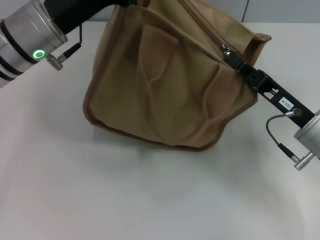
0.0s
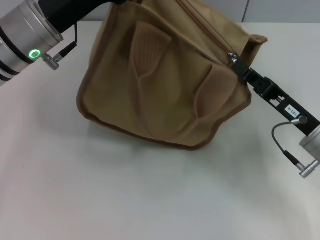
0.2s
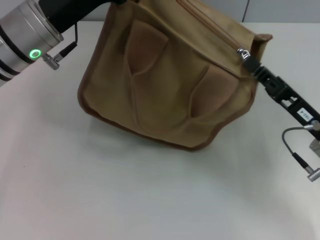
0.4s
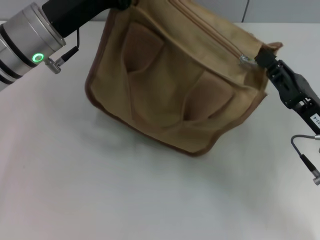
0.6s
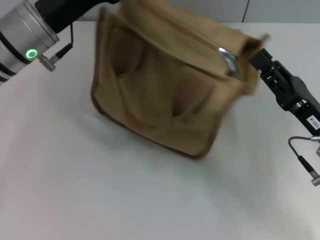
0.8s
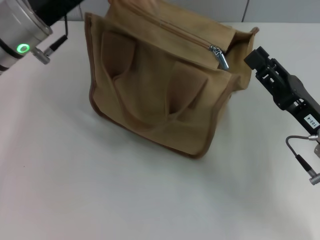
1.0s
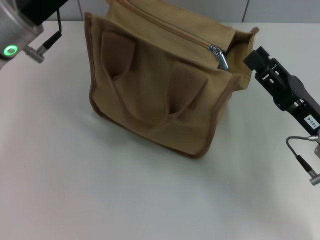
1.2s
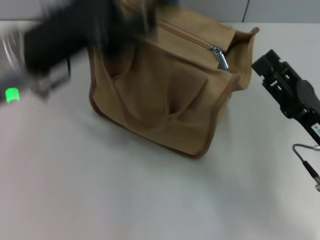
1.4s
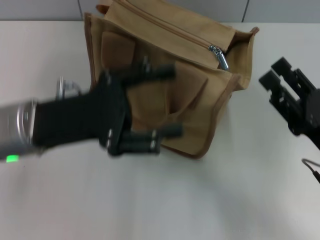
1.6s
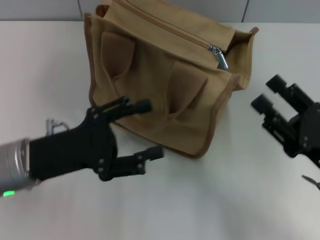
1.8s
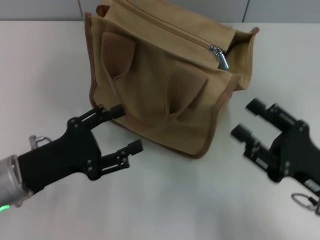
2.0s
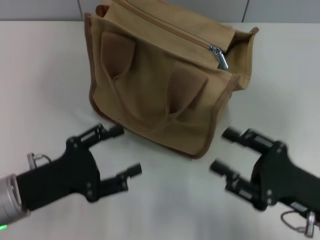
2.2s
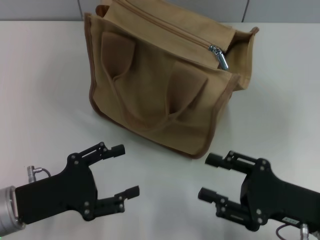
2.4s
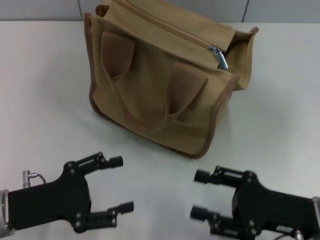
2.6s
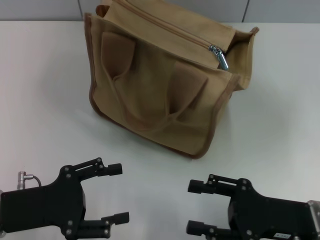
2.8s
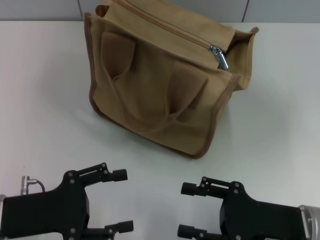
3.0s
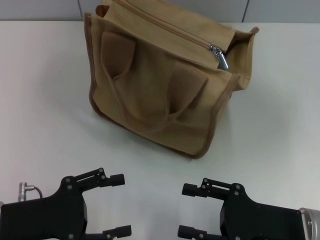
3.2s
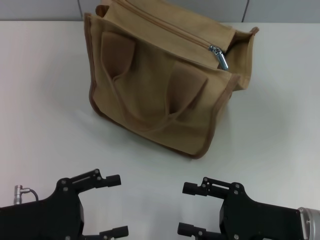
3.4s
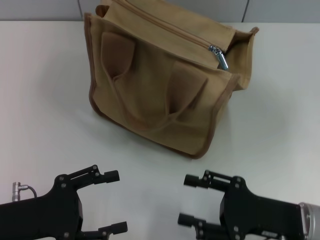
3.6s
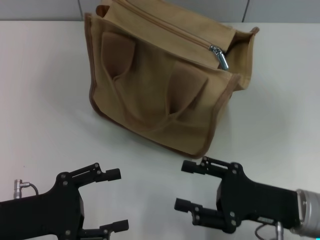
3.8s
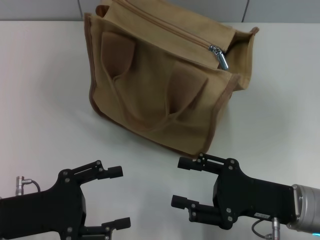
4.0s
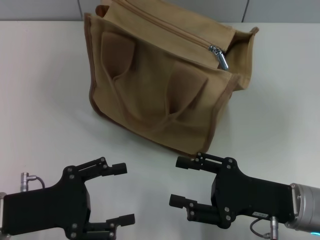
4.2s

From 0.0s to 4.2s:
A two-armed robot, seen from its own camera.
Step, from 1.2s to 1.6s: Grab the zipper with your left hand.
From 0.0s to 1.4s: The left gripper opens its fingers; the right gripper shifts by approximately 5 cm, and opens its fingers.
From 1.4s to 2.8s: The left gripper travels backward, downward and to the left by about 20 cm. The right gripper ends up approximately 5 cm from where it was.
From 2.8s to 4.2s: The grippers move only a little.

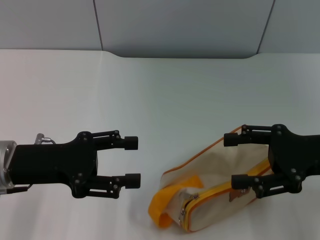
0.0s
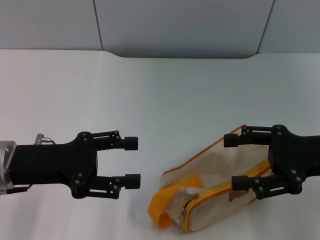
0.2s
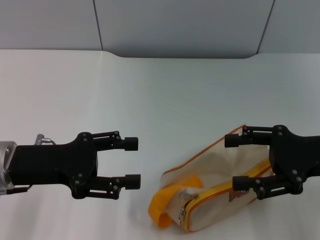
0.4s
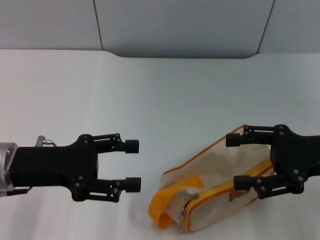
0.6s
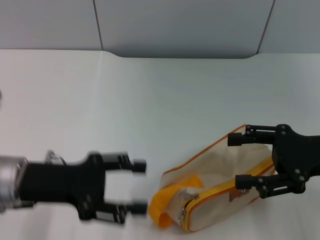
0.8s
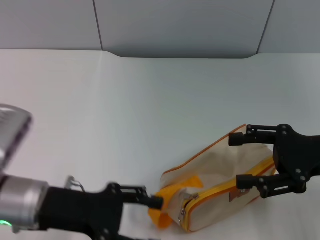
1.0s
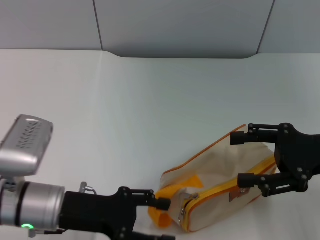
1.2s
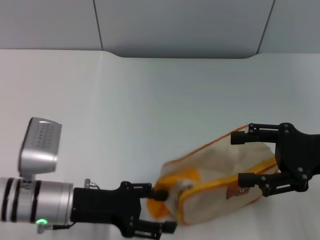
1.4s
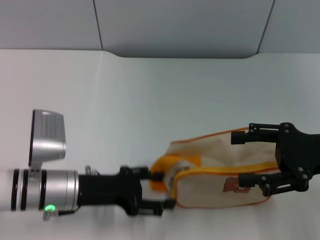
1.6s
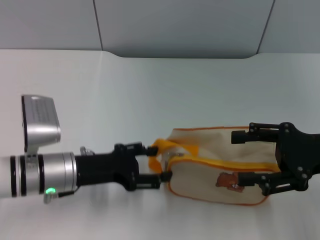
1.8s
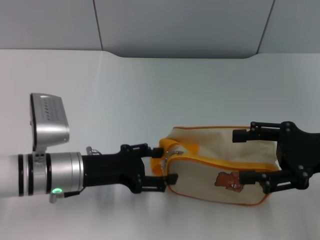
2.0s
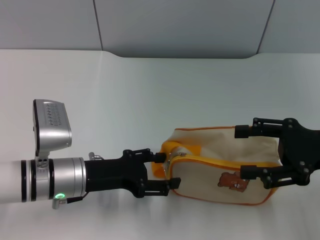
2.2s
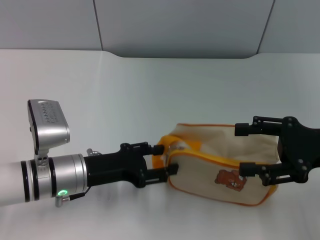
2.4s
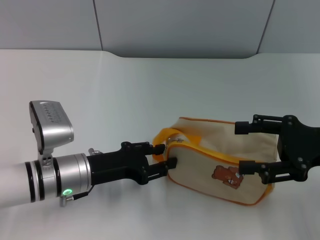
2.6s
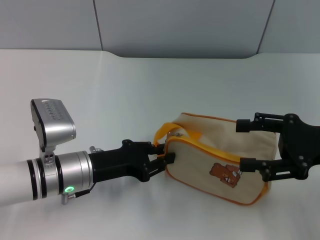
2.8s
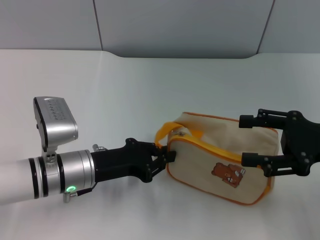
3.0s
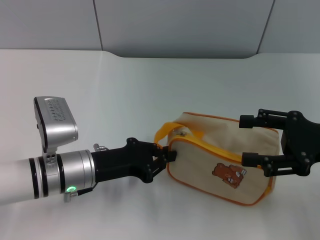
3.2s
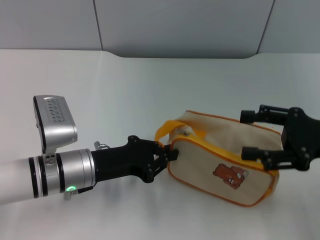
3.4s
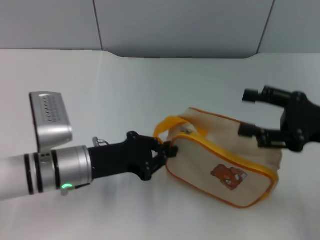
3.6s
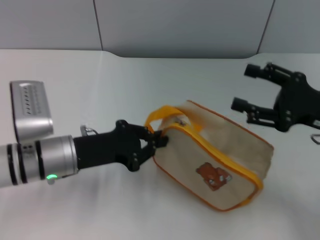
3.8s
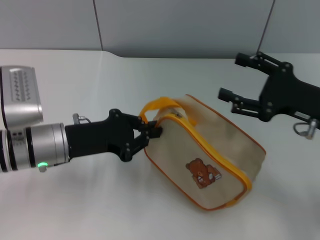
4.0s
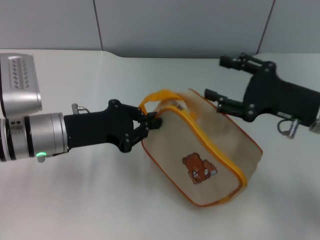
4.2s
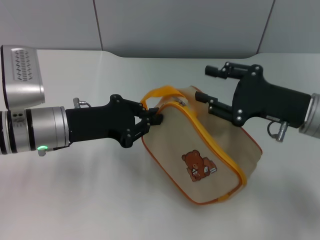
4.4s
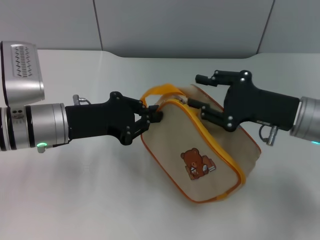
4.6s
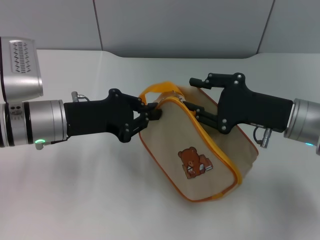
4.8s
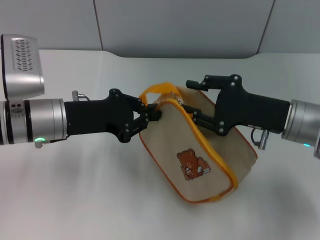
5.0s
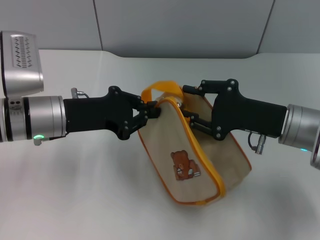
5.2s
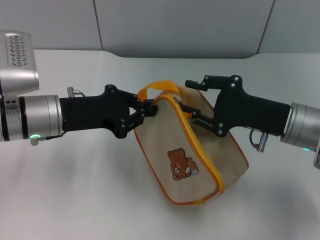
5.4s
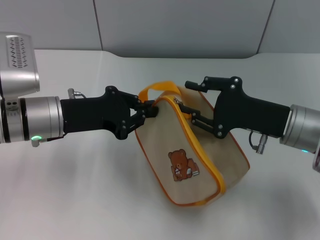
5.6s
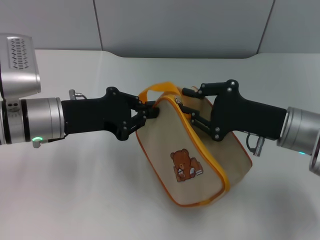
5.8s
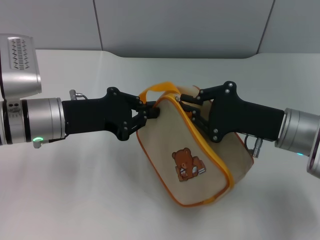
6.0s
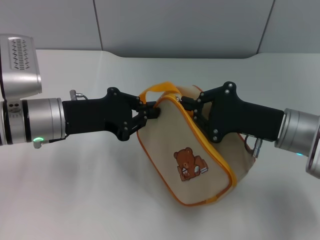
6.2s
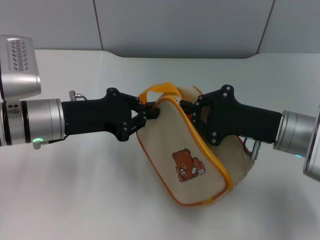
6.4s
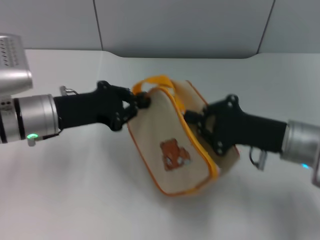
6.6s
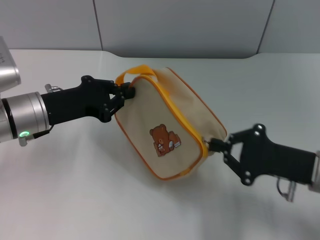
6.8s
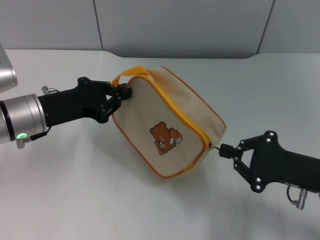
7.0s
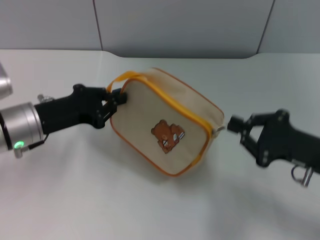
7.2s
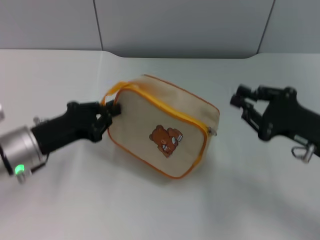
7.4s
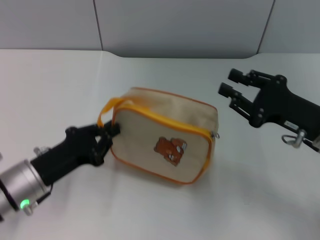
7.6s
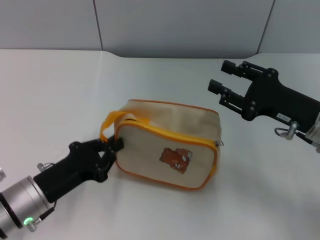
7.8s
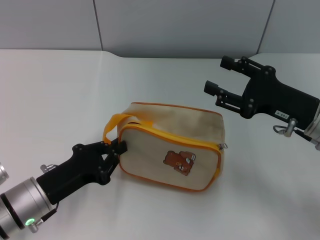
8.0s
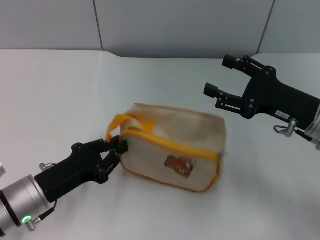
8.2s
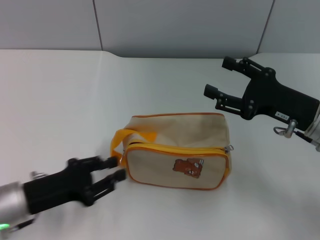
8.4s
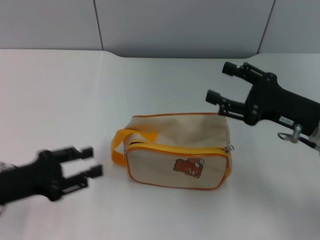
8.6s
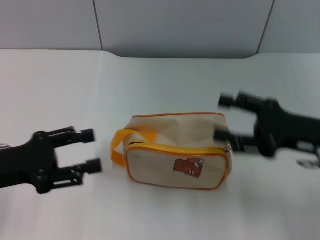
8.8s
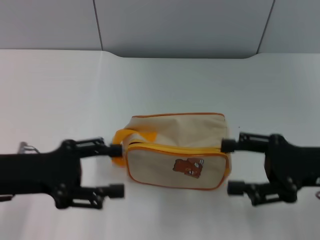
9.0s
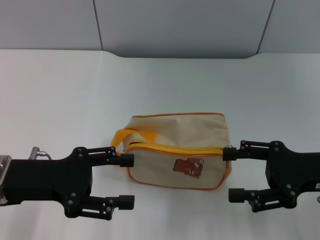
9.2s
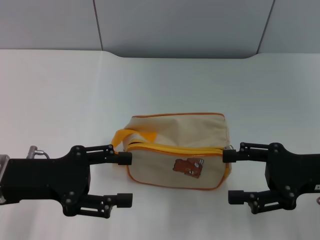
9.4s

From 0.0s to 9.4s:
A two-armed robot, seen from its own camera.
Step, from 0.0s to 4.2s: Pick up the bag with left gripper.
Step, from 4.4s to 7.2s: Unzip the zipper of bag with right gripper.
Step, from 7.4s to 8.4s: Place the bag on the table with left gripper.
From 0.0s to 1.6s: The left gripper shifts some 10 cm downward and to the right.
From 1.6s to 3.2s: The left gripper closes.
From 3.2s to 4.8s: The left gripper travels upward by about 5 cm. The right gripper moves to the left, roughly 10 cm, and closes.
From 4.8s to 6.2s: The right gripper closes.
From 6.2s to 7.8s: The left gripper is displaced backward and downward by some 15 cm, while the right gripper opens up.
From 7.8s to 9.4s: The left gripper shifts roughly 10 cm upward, and opens. The right gripper moves about 5 cm, and opens.

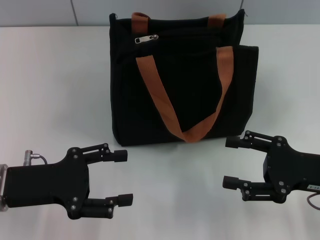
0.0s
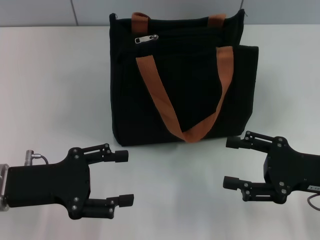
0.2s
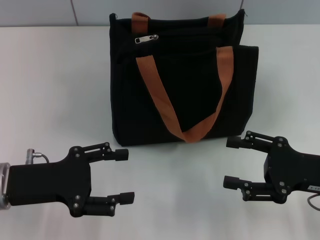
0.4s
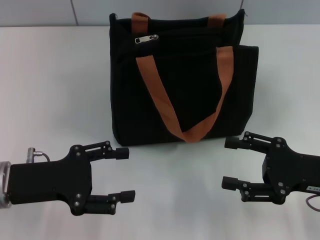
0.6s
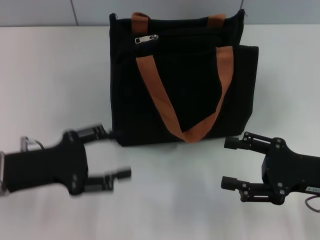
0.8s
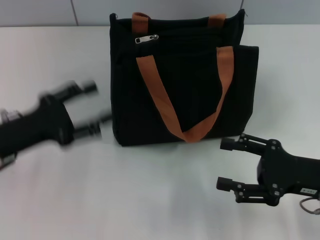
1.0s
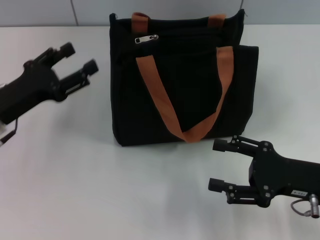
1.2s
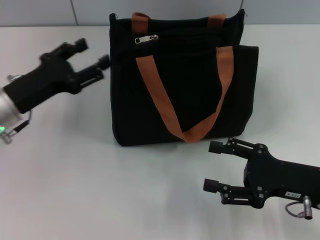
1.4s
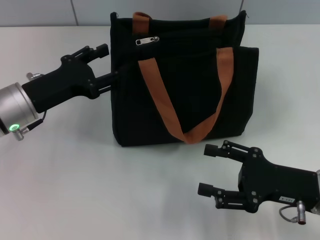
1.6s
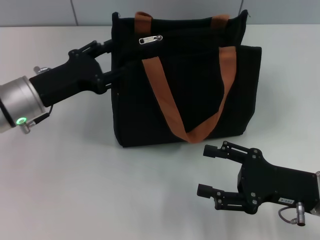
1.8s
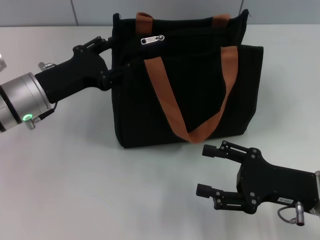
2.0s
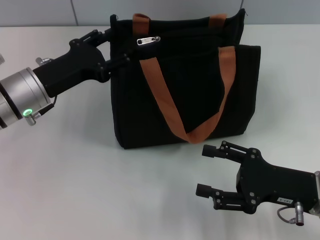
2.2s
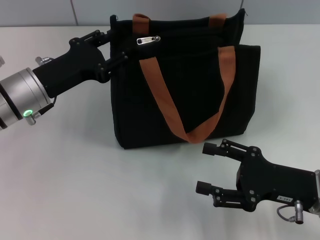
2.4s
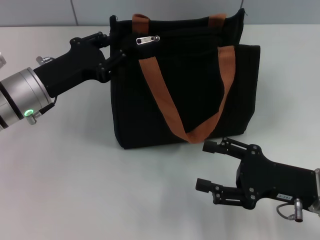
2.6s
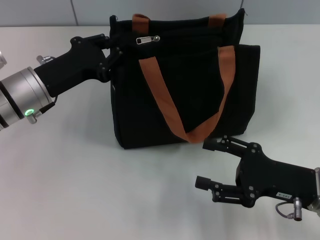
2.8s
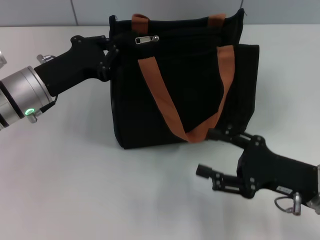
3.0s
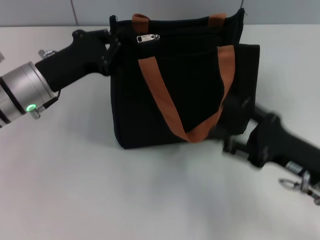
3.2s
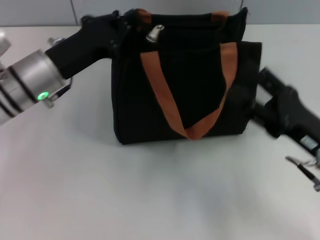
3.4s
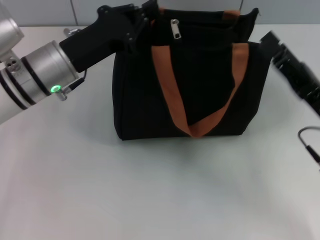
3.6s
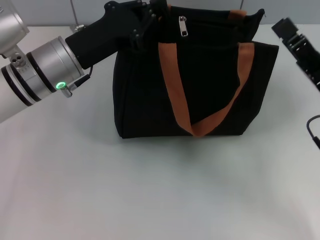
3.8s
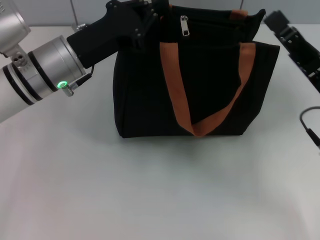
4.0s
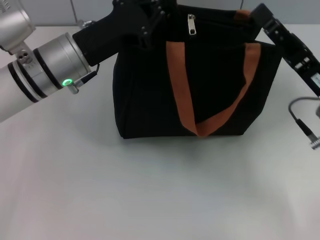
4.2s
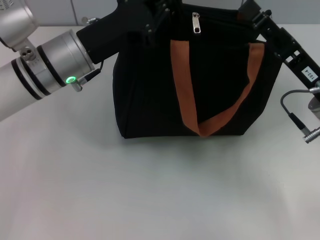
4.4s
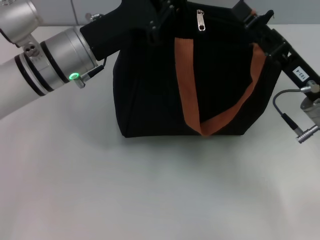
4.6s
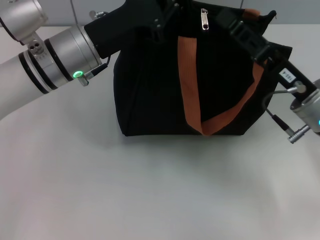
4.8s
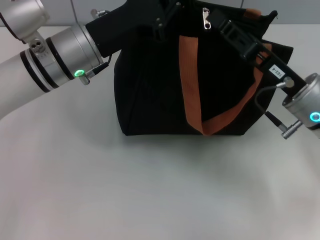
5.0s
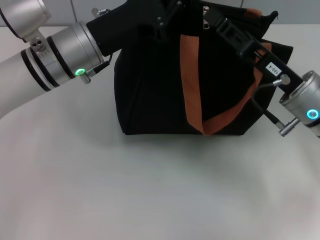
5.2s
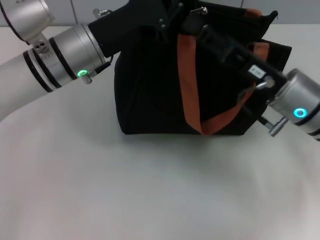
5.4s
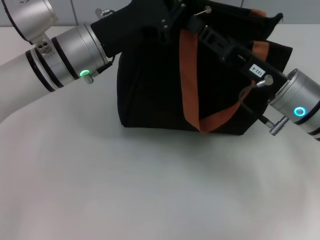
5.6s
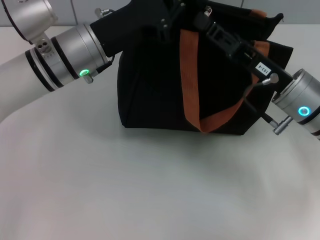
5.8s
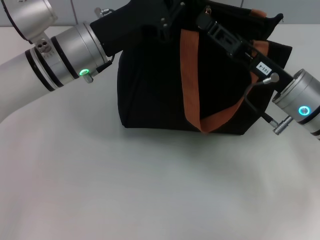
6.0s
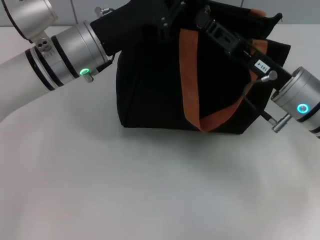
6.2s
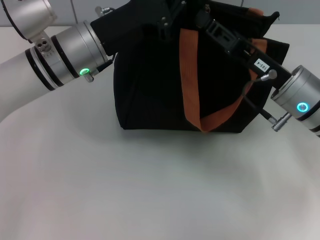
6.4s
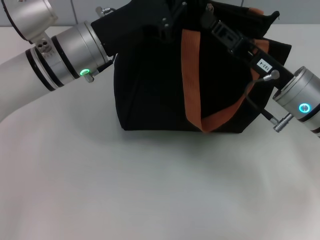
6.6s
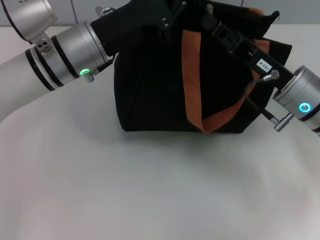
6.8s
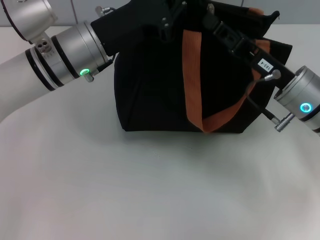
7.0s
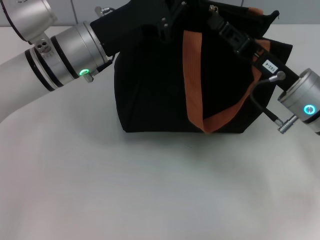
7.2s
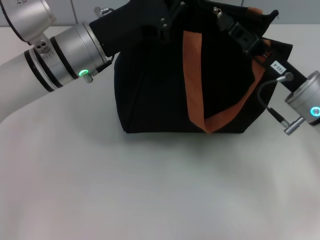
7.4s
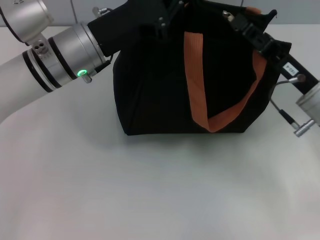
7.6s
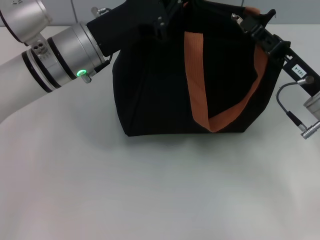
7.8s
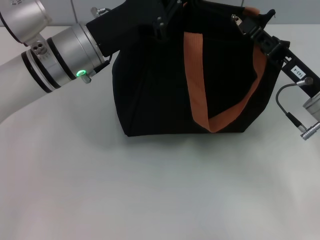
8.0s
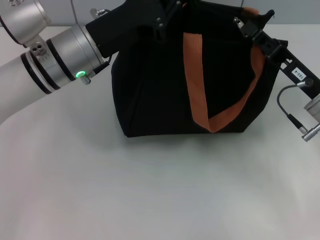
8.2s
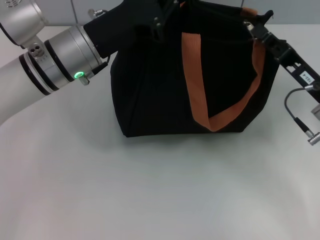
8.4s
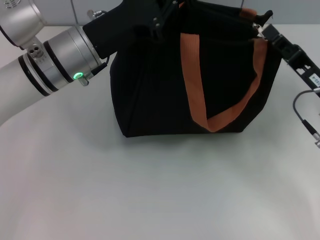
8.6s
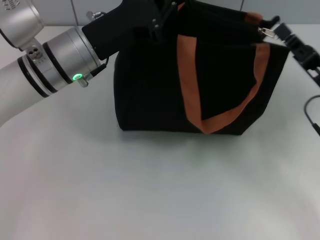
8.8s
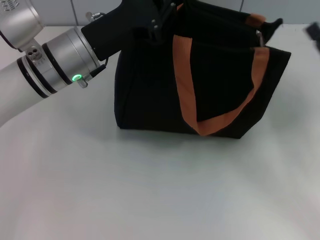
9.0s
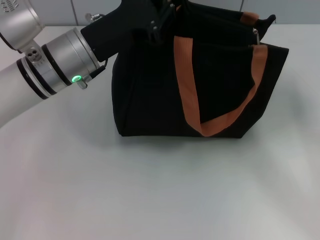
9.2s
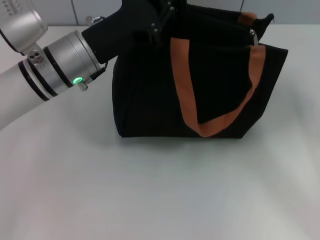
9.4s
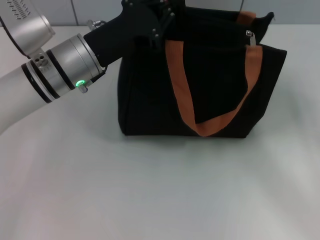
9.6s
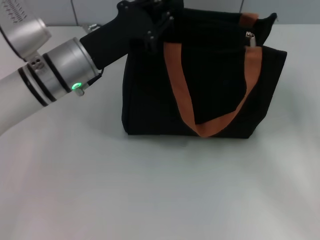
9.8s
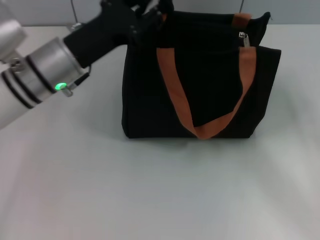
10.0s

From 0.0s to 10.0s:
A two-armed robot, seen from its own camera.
Step, from 0.0s to 8.8s: Pull up the zipper with your right hand.
From 0.0s to 1.4s: The left gripper is displaced forward by approximately 10 cm.
From 1.4s to 2.8s: The left gripper closes.
From 2.8s to 4.2s: The left gripper is displaced to the right by some 5 cm; the right gripper heads forward and upward, covering roughly 10 cm.
From 4.2s to 5.8s: The right gripper shifts by some 5 cm, and closes its fingers.
From 5.8s to 7.2s: The right gripper closes.
From 7.2s to 8.6s: The right gripper moves to the right, roughly 5 cm.
From 8.6s to 10.0s: The right gripper travels backward and to the right by about 10 cm, and opens up.
